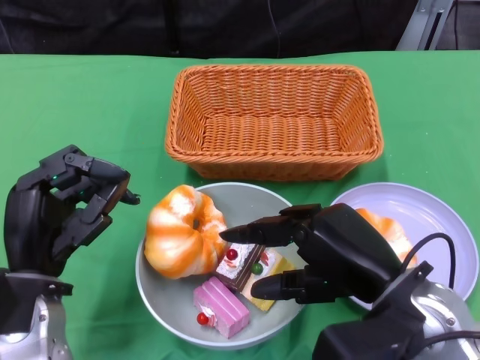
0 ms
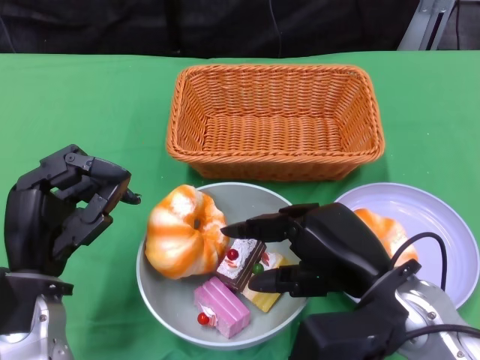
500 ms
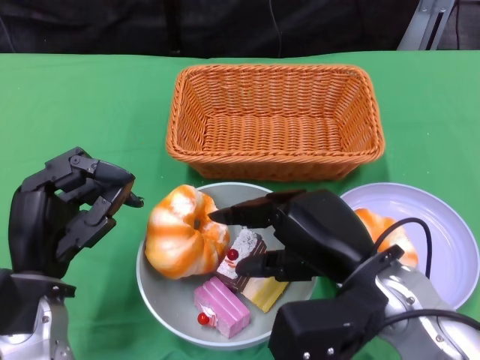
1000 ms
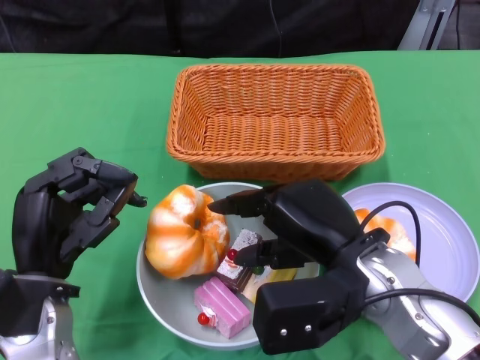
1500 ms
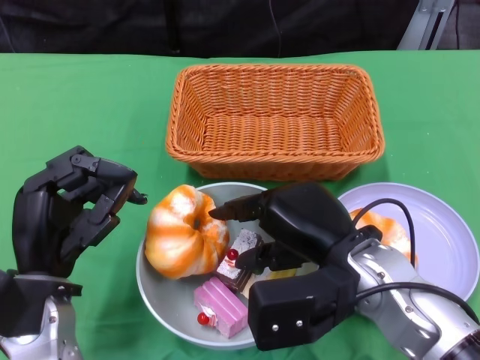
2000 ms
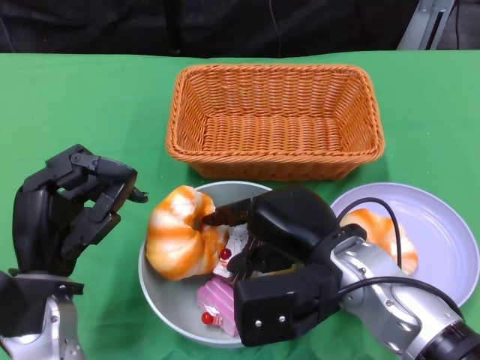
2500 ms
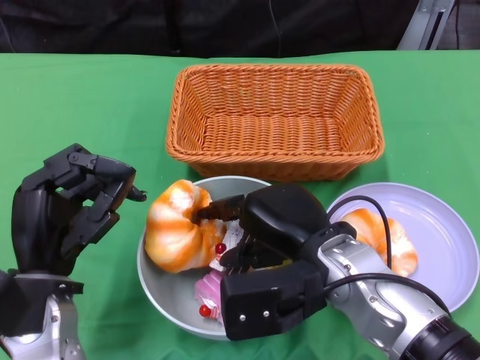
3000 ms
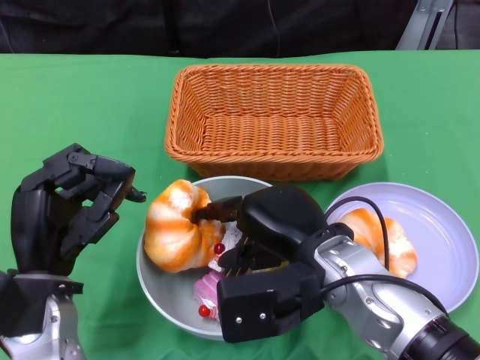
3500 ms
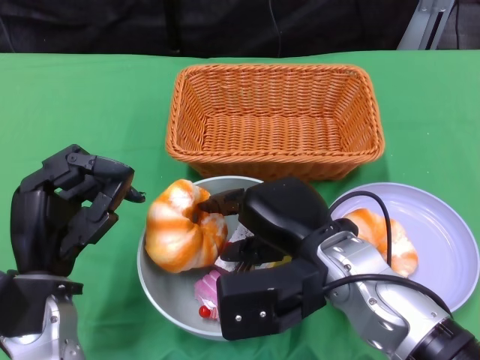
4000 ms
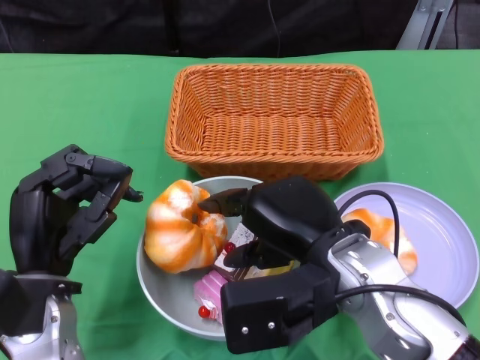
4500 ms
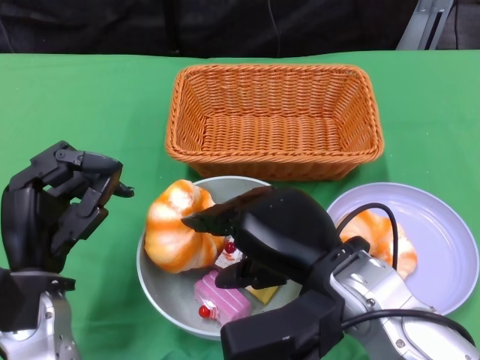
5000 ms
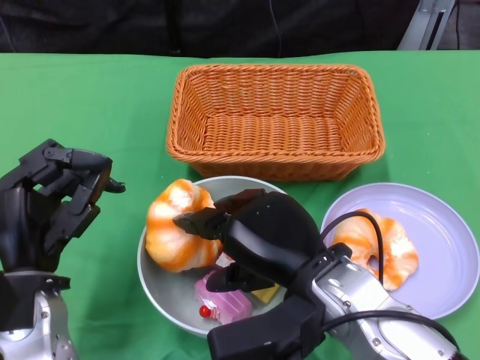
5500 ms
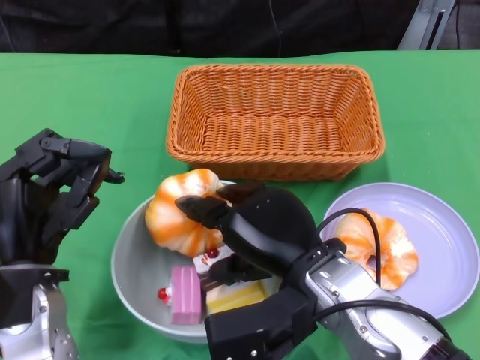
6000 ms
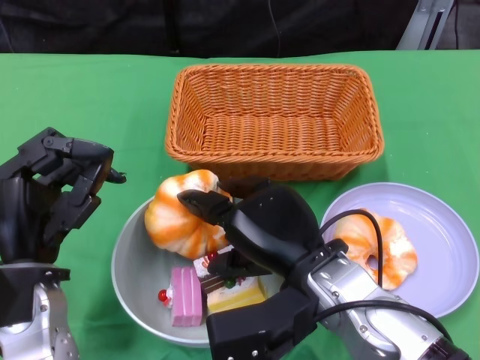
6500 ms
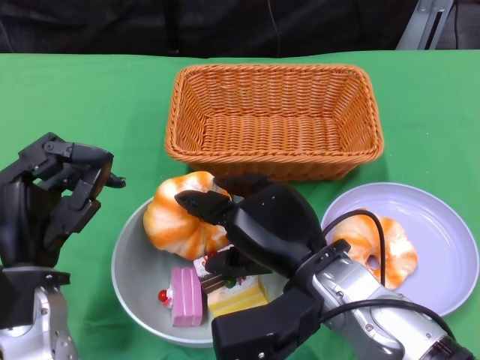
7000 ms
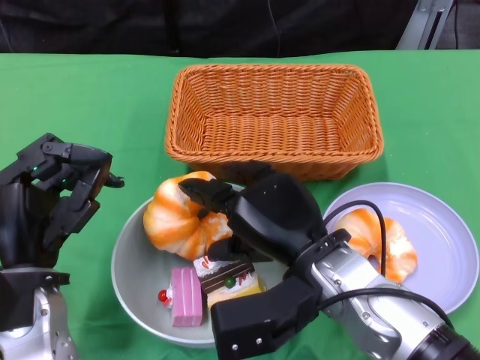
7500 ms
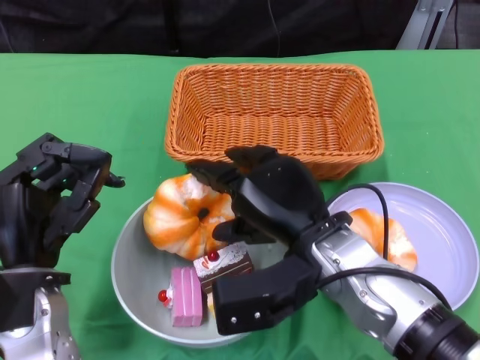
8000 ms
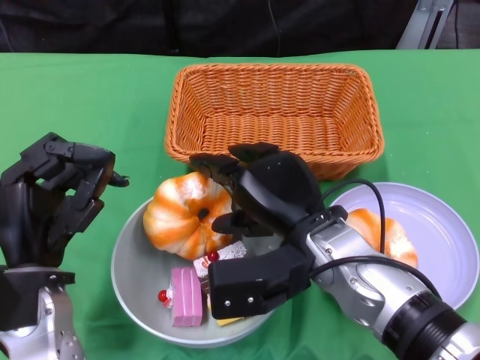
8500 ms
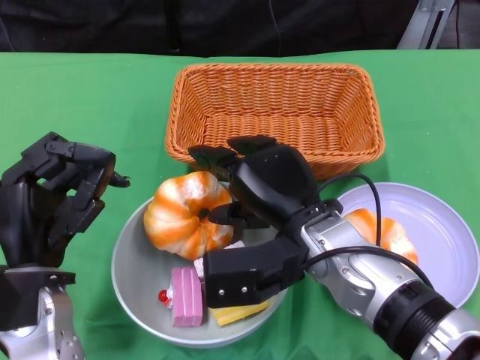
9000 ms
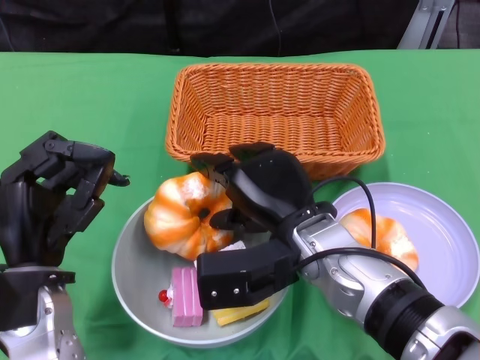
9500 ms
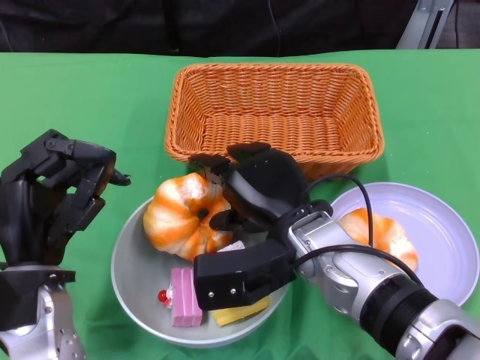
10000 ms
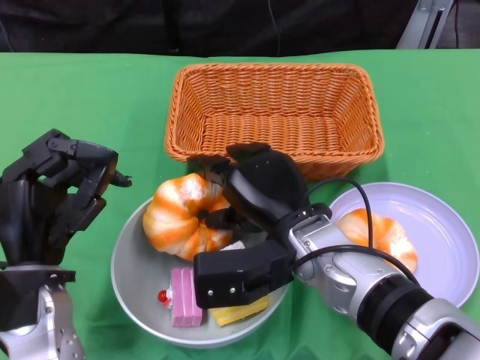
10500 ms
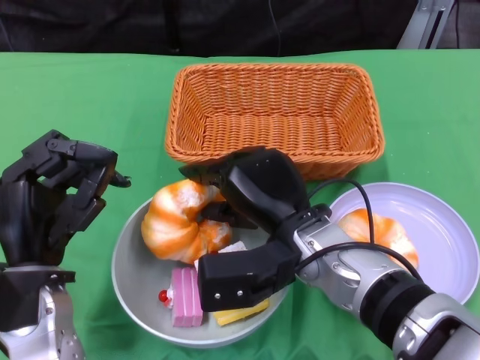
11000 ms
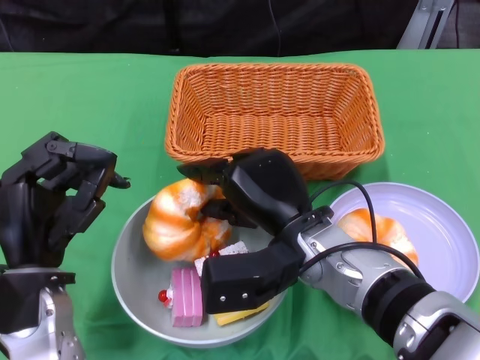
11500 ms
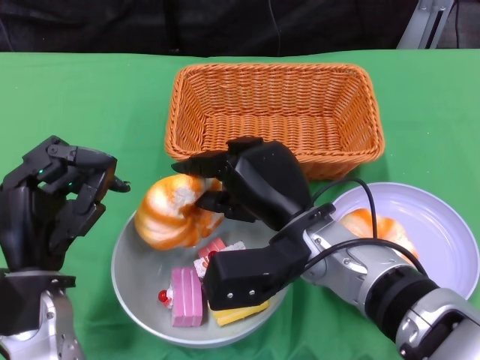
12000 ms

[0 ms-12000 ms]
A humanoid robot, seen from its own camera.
0 ms to 2000 ms: The right hand moves approximately 5 cm.
2000 ms to 4000 ms: The hands make only small movements.
8000 ms to 10000 ms: The hands stay close to where they were, moving slightly.

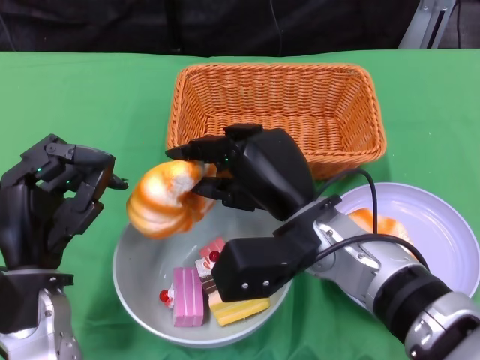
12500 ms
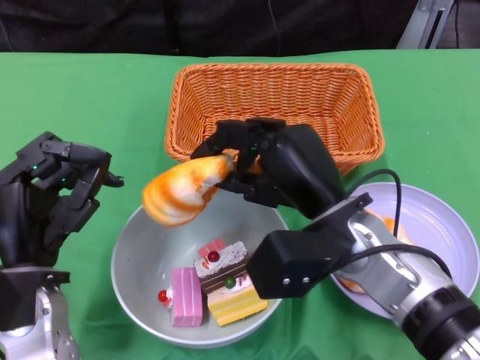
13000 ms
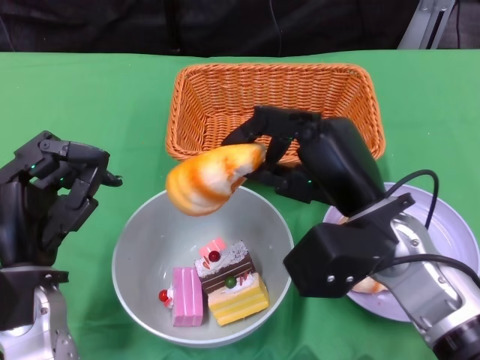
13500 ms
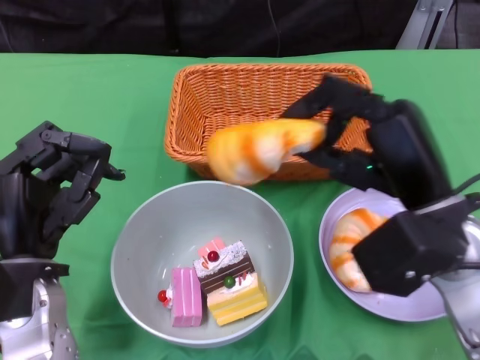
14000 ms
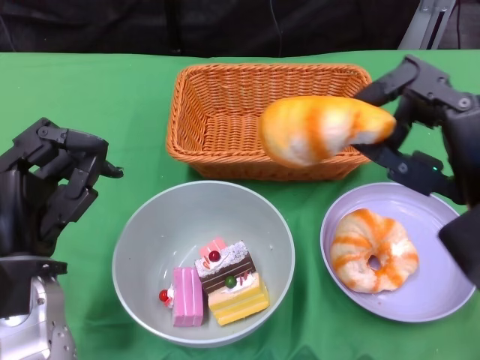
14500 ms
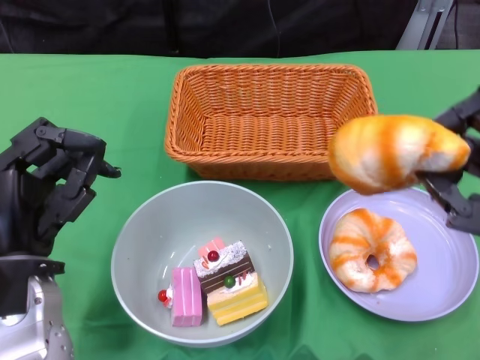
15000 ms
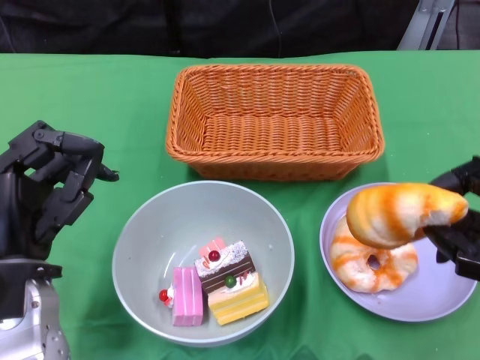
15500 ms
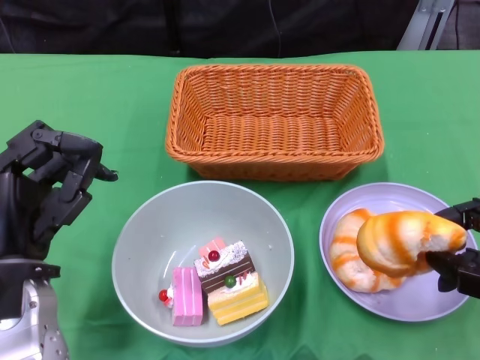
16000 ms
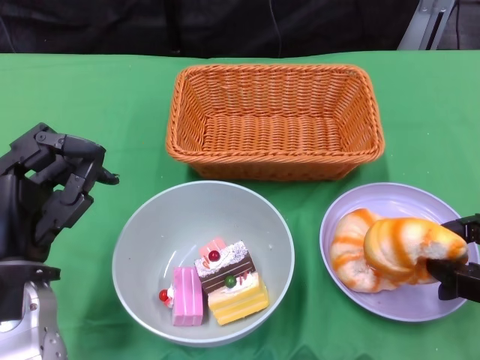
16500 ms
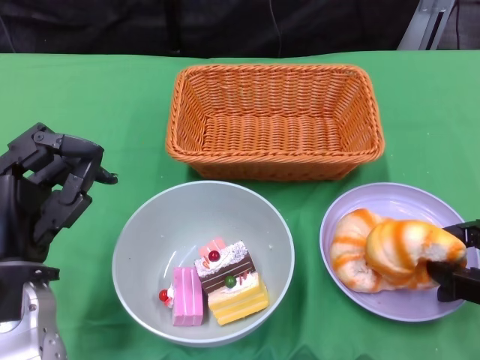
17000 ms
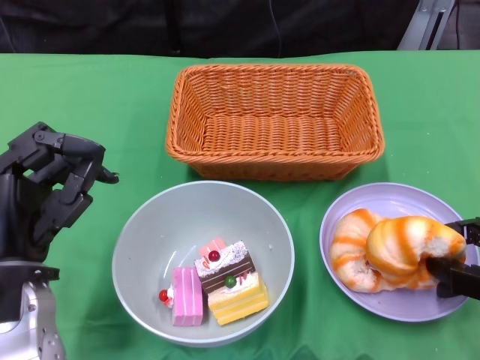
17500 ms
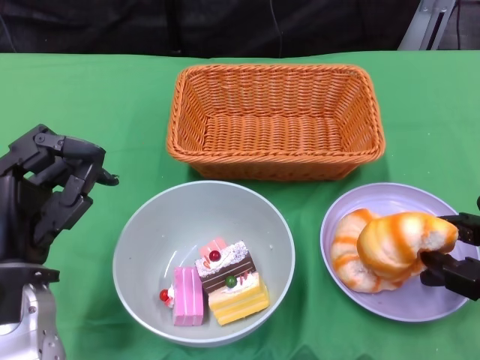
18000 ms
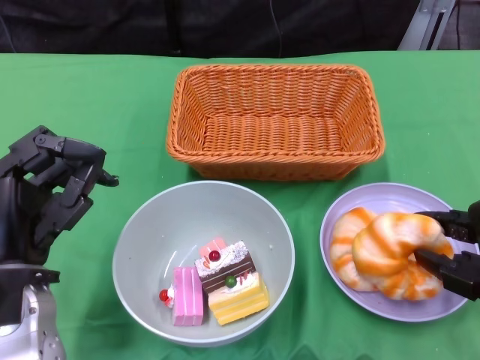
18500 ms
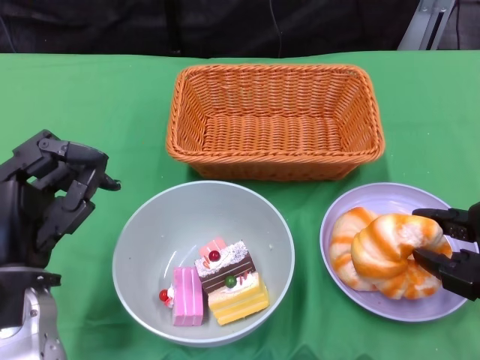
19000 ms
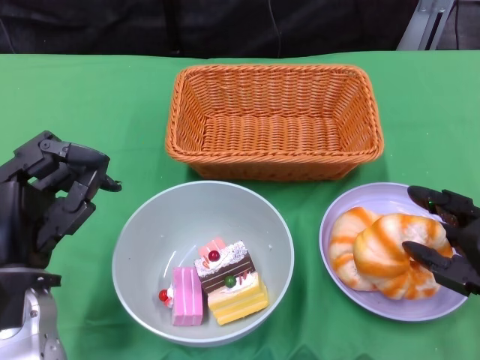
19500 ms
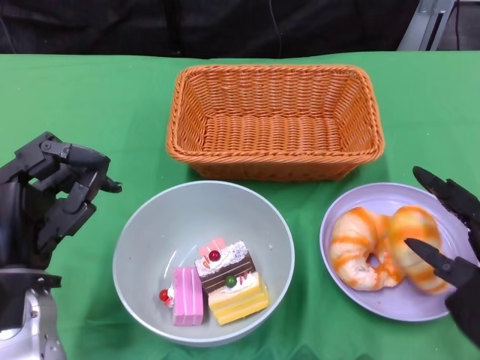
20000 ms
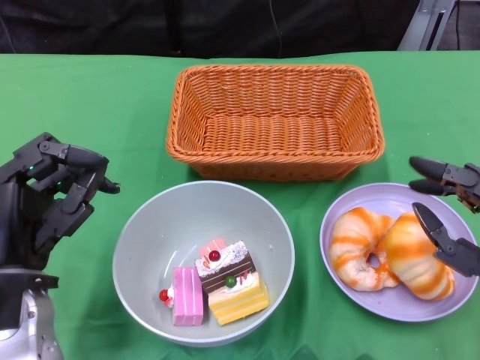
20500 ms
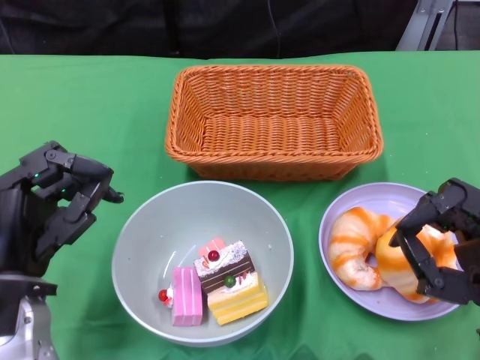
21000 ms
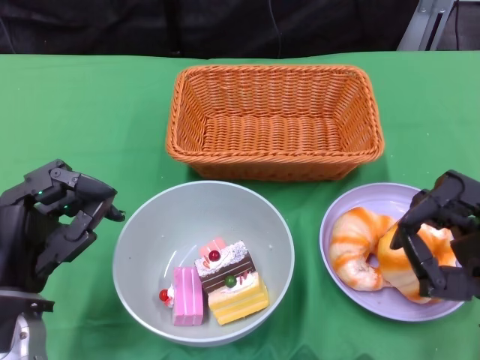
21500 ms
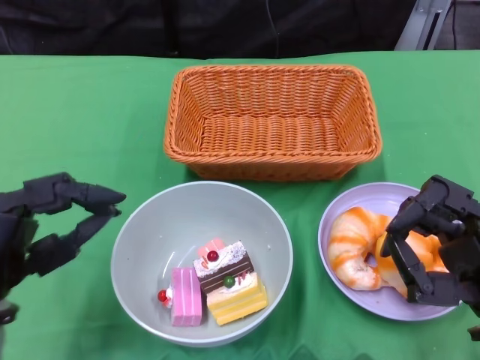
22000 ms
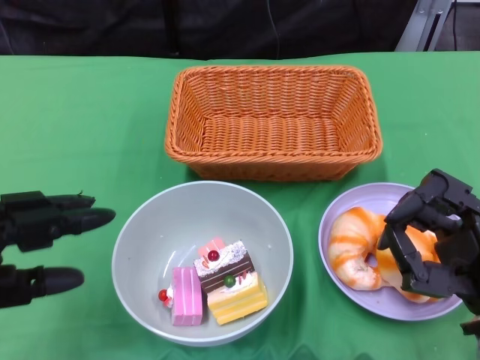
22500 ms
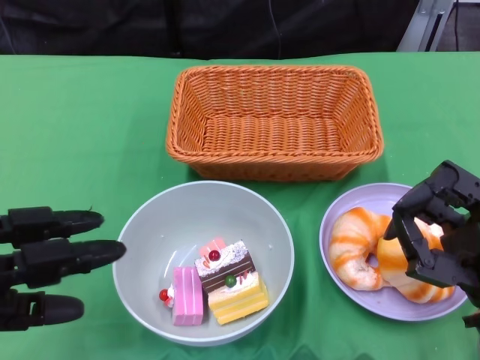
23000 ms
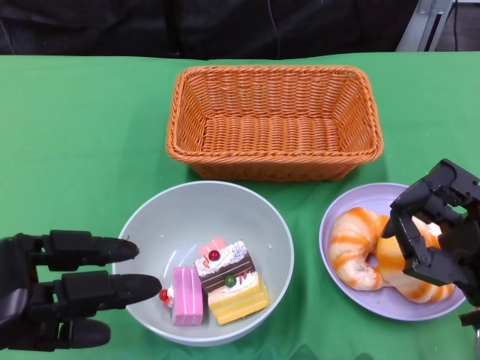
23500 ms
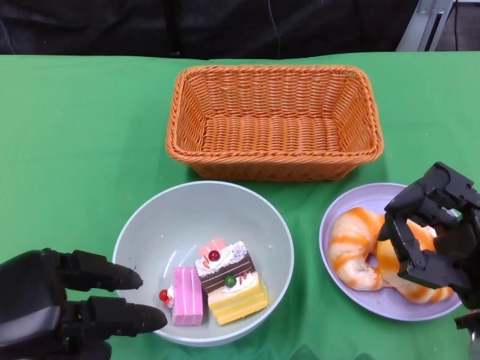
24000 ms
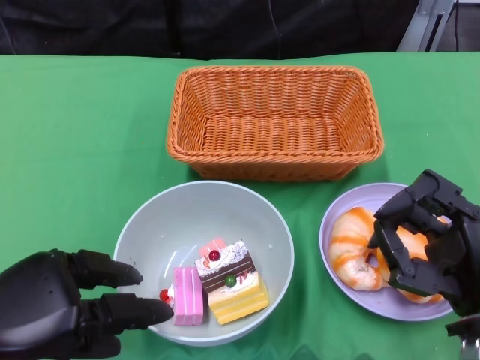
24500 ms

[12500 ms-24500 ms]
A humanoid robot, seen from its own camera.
Step, 12500 ms to 21500 ms: Pick up the bread with the right gripper and place it on the plate.
12500 ms to 14500 ms: The right hand moves to the right, upward and backward, roughly 15 cm.
14500 ms to 16500 ms: The right hand heads to the right and downward, covering some 10 cm.
16500 ms to 18500 ms: There are only small adjustments of the hands.
20500 ms to 22500 ms: The left hand travels to the left by approximately 10 cm.

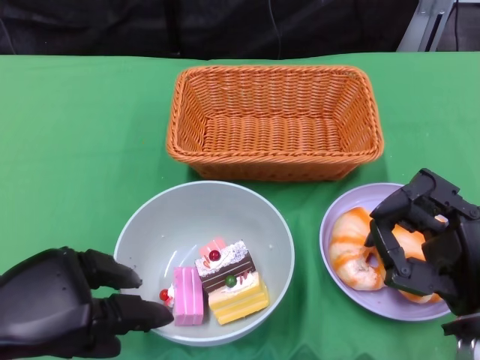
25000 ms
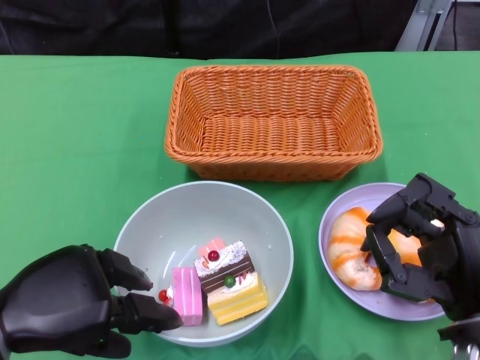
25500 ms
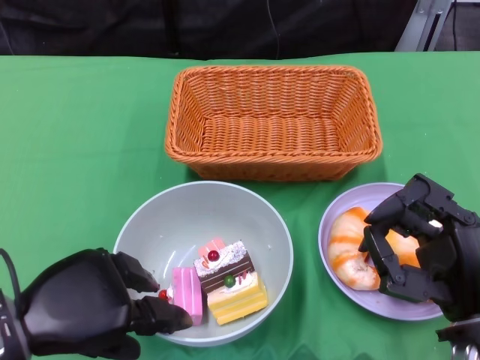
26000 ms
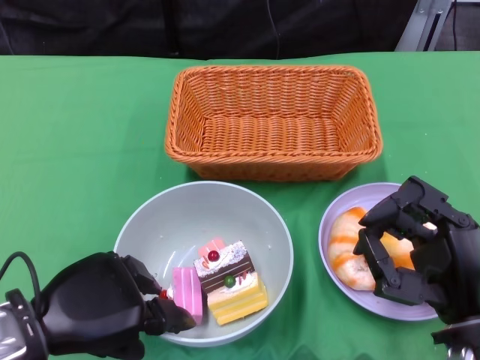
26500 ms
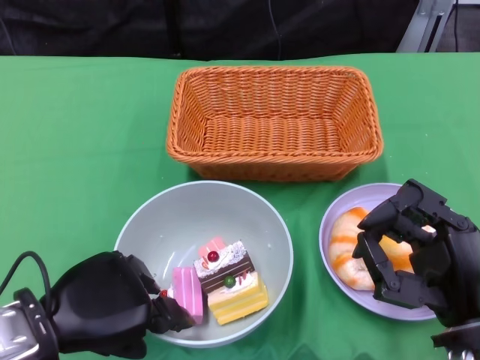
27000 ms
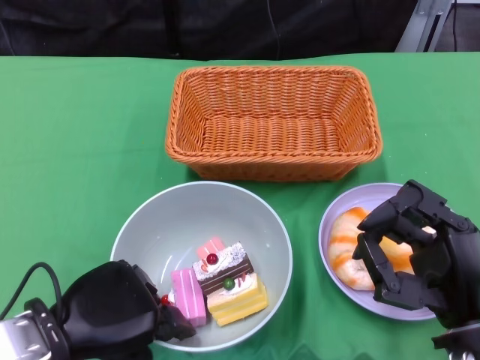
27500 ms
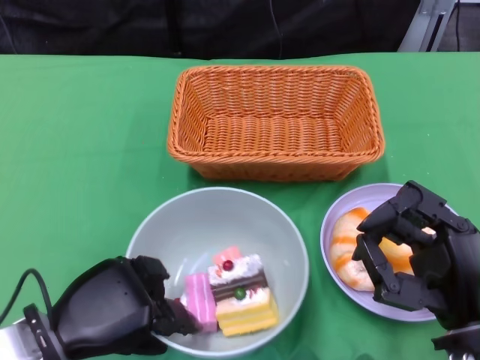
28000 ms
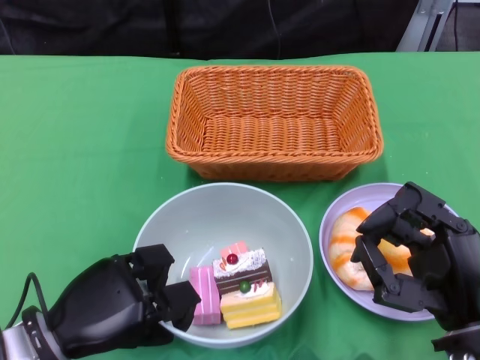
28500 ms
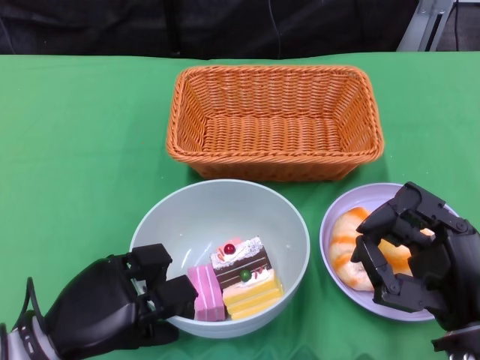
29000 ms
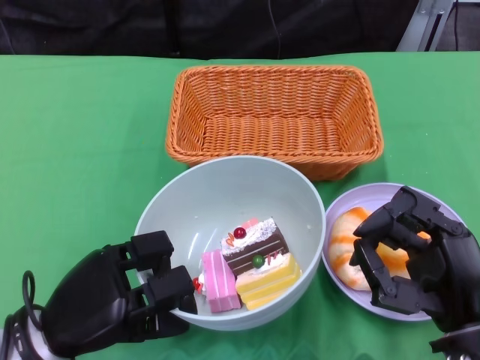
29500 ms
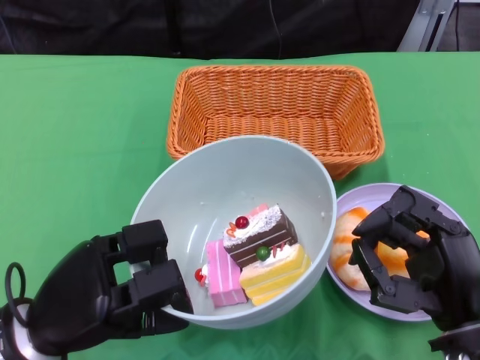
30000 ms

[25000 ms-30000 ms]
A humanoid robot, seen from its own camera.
Step, 25000 ms to 28000 ms: Grasp the bowl with the left gripper.
25000 ms to 27500 ms: The left hand moves to the right, some 5 cm.
